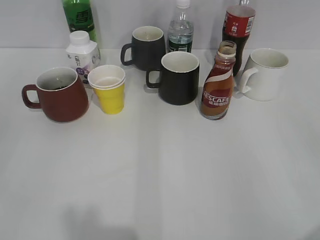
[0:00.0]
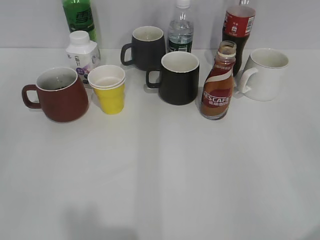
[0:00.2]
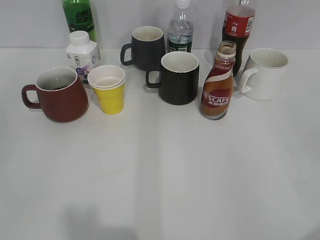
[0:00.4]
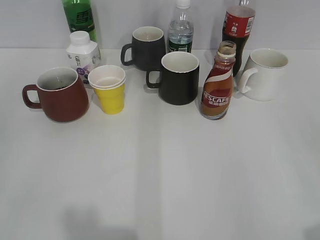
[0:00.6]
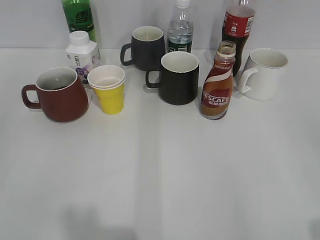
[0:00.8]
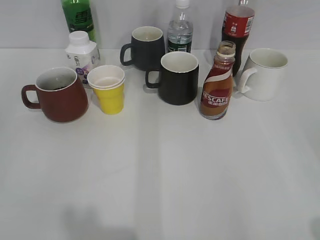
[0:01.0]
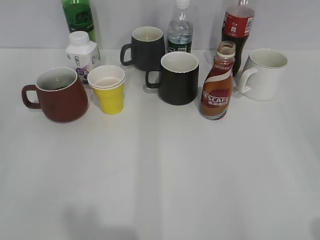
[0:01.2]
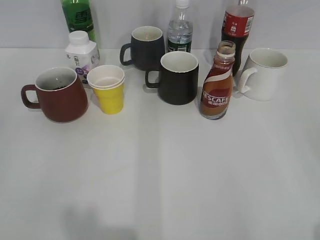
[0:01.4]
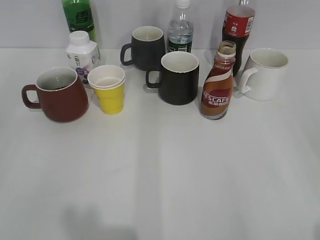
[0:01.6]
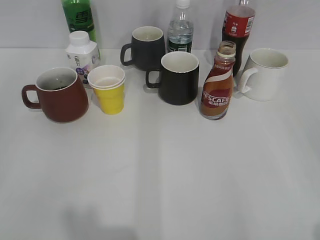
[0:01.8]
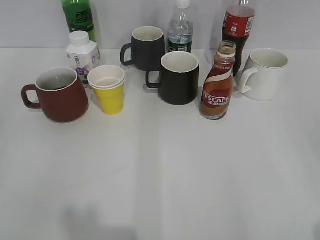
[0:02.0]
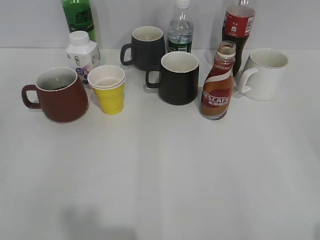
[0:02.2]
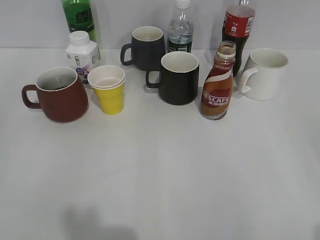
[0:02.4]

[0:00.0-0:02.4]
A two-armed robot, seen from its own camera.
0:01.2 to 0:02.4: Both grippers stay about where they are.

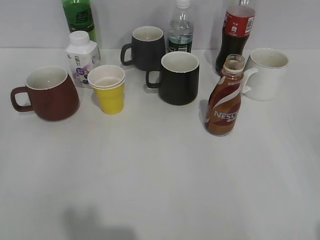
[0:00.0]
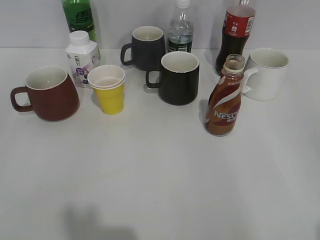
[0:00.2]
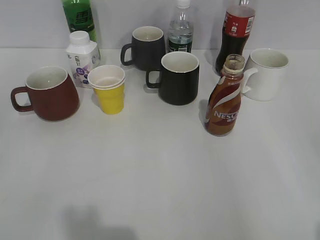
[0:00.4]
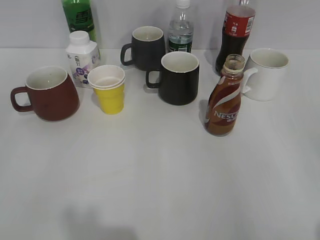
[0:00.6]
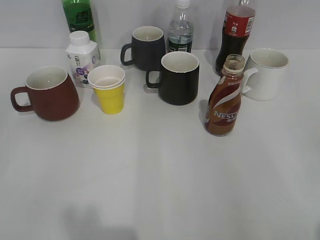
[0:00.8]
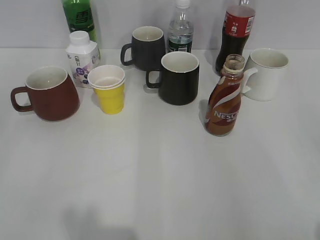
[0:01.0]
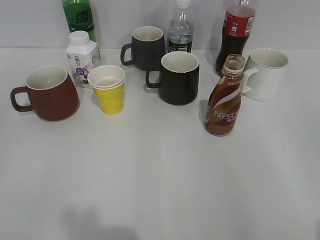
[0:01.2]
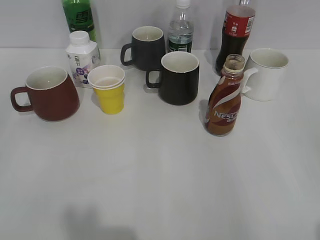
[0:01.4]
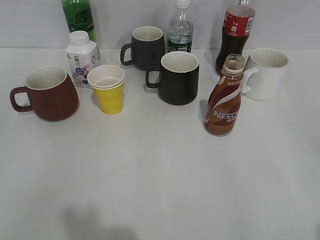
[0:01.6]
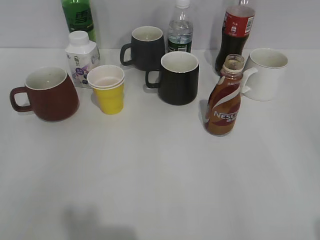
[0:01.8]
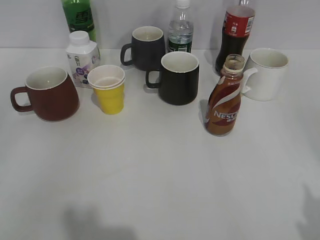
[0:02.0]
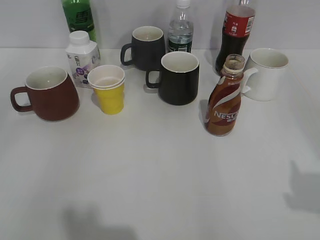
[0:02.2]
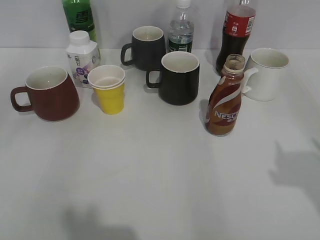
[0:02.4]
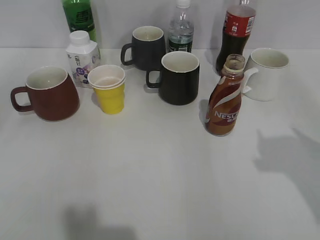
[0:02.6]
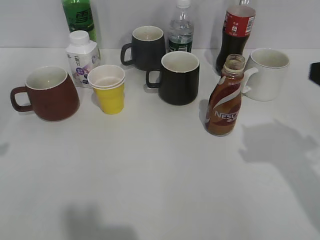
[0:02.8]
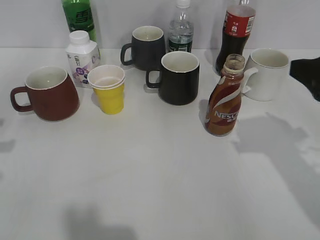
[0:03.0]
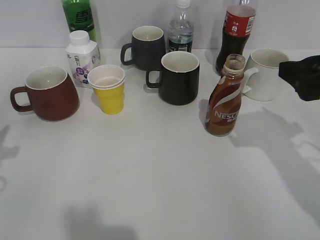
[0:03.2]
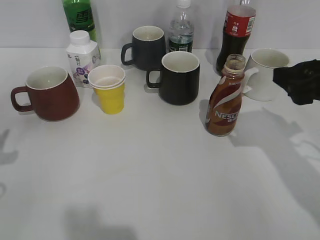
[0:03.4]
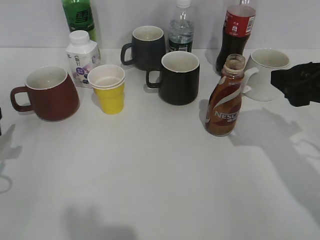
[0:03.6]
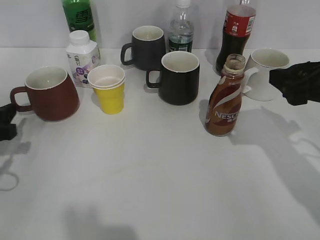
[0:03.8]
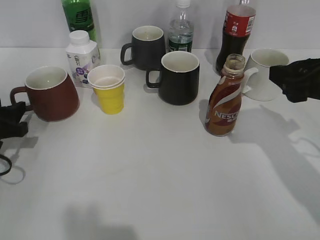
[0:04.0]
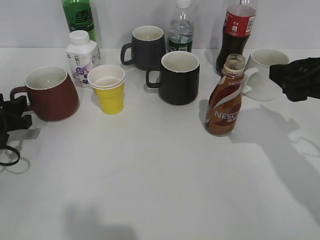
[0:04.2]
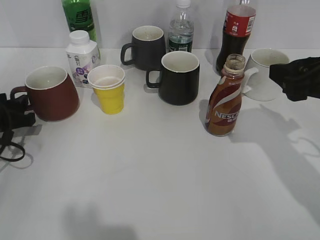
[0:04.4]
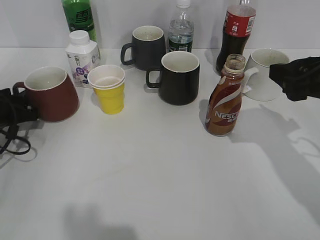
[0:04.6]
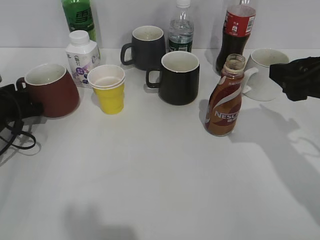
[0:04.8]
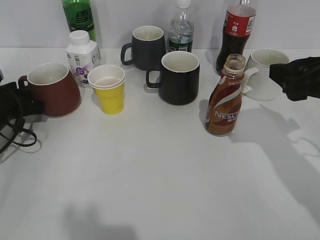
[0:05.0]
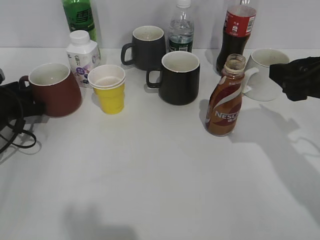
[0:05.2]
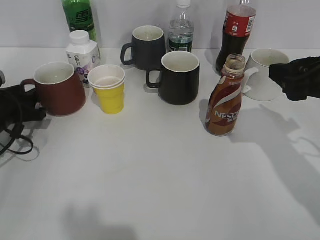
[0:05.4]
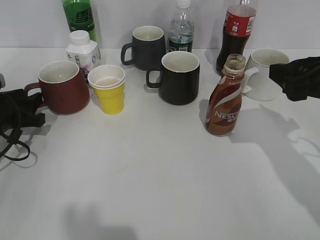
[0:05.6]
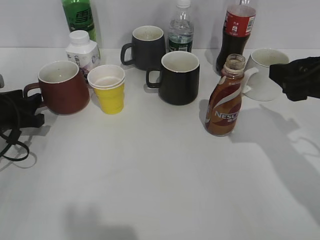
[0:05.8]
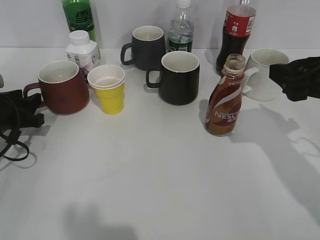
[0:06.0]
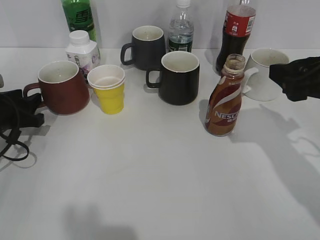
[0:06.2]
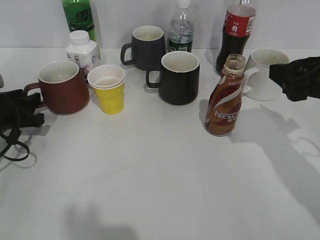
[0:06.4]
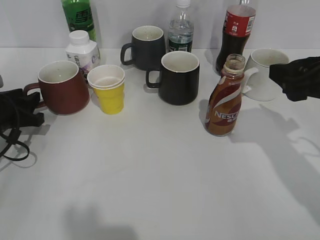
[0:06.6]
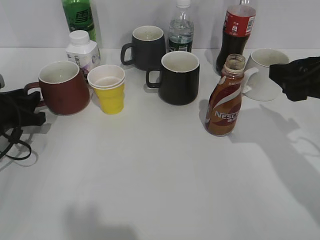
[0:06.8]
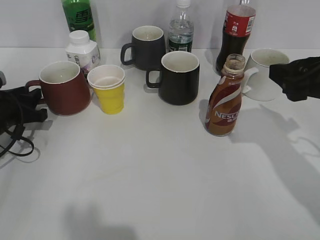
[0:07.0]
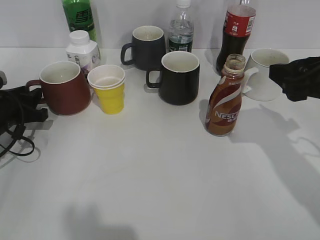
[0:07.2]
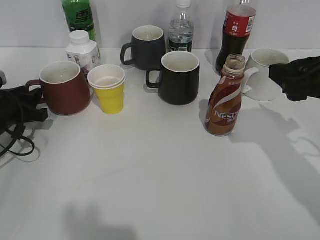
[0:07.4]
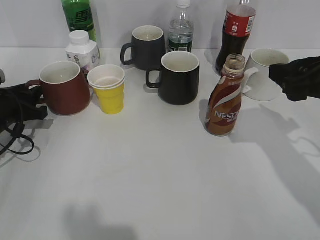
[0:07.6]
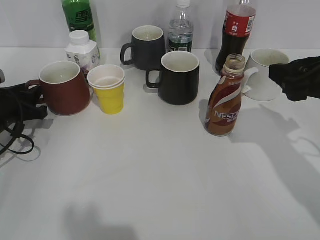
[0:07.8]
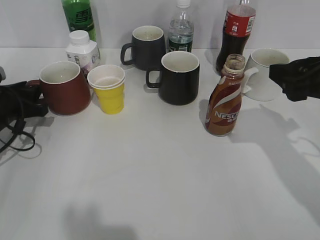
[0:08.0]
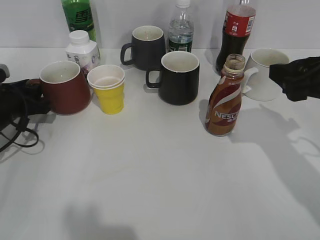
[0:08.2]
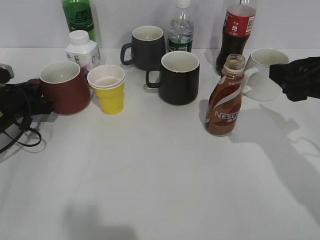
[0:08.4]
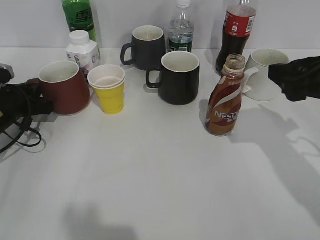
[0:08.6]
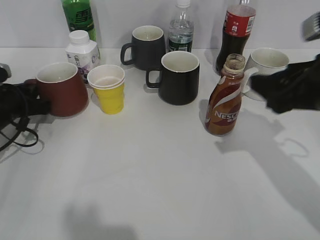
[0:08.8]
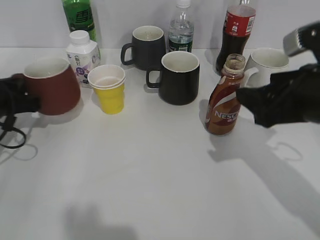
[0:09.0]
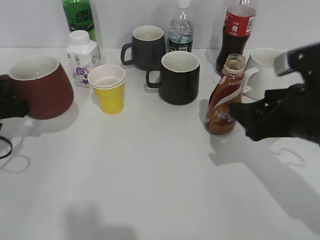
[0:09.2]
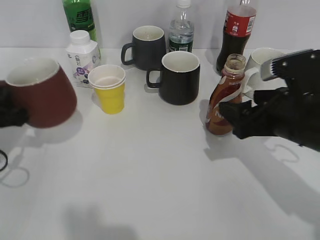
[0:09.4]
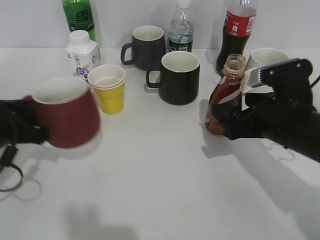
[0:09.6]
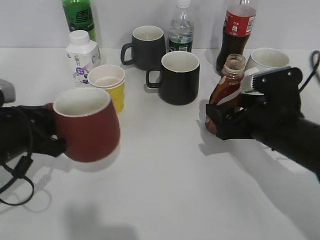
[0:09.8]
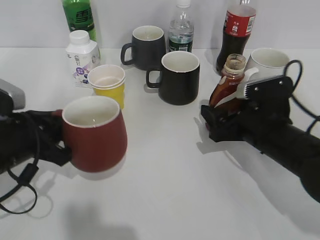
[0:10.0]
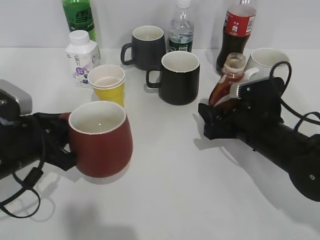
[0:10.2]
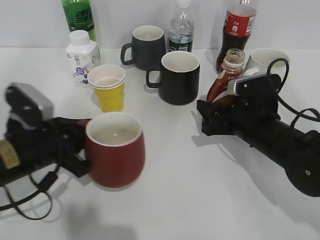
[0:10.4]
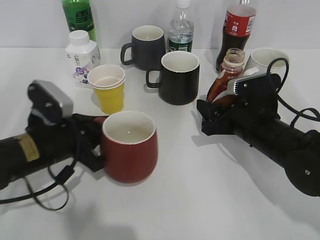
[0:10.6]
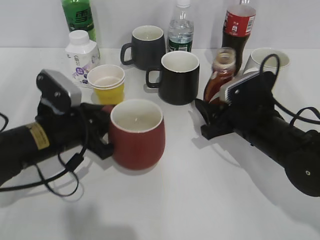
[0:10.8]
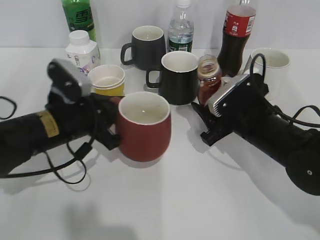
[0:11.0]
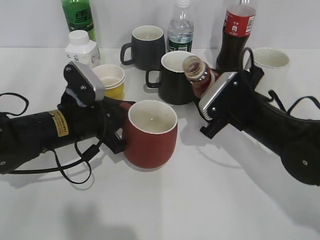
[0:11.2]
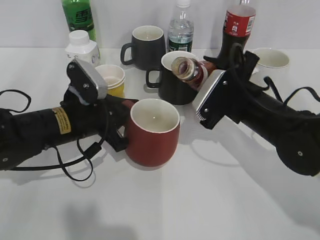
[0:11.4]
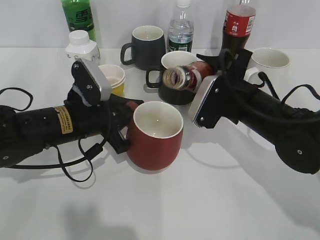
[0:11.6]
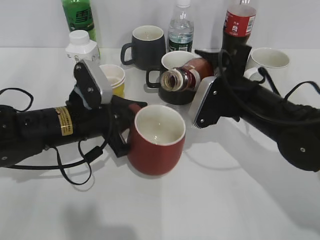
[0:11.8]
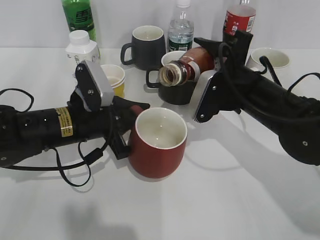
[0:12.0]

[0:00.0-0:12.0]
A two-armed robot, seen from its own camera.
Step, 0:01.8 to 0:08.6: Grasp the red cup with left gripper.
Step, 0:08.8 to 0:10.4: Lift the red cup with left gripper.
0:01.6 to 0:03.0: The right gripper heads forward, covering some 20 cm.
0:03.0 to 0:04.4: The left gripper travels downward and forward by approximately 15 cm, and opens.
0:04.4 to 0:07.6: The grippers move only a little.
0:07.6 to 0:09.0: The left gripper closes.
0:09.0 to 0:10.4: The left gripper travels to the right and backward by approximately 10 cm. The right gripper is displaced downward and forward by some 15 cm, and closes up.
0:10.4 to 0:12.0: The left gripper travels to the right and forward by about 10 cm, while the right gripper moves upward, some 5 cm.

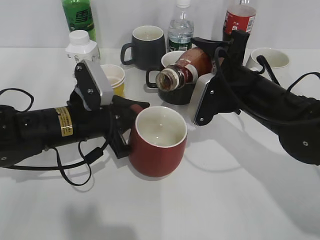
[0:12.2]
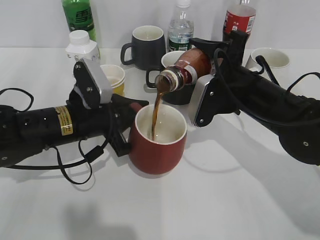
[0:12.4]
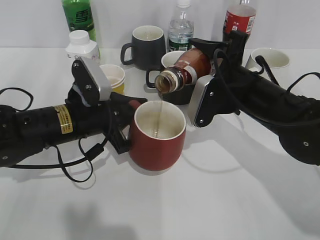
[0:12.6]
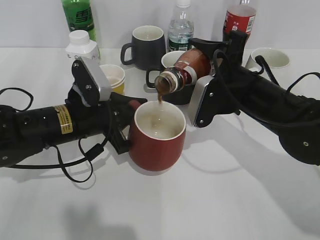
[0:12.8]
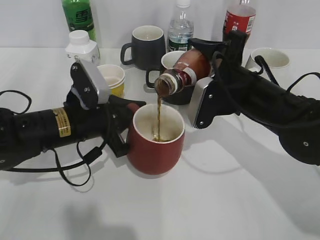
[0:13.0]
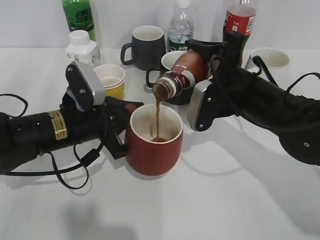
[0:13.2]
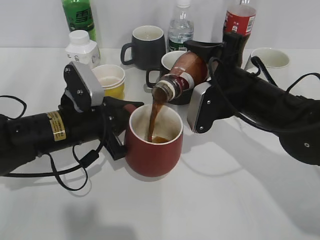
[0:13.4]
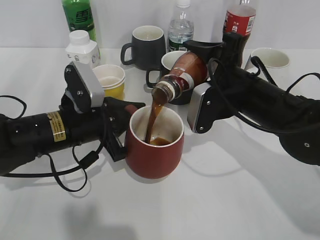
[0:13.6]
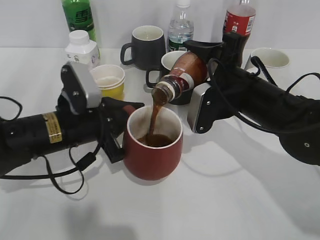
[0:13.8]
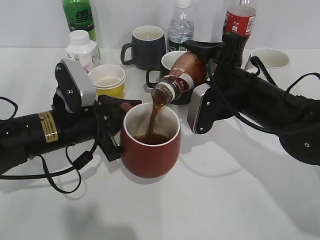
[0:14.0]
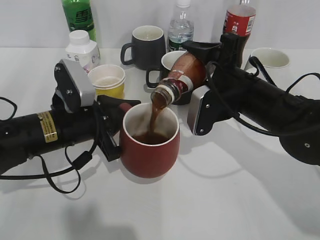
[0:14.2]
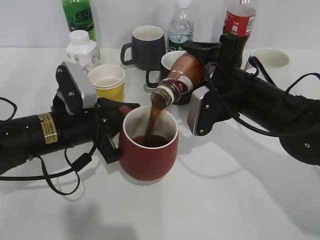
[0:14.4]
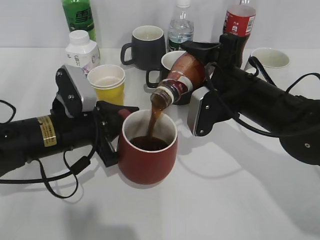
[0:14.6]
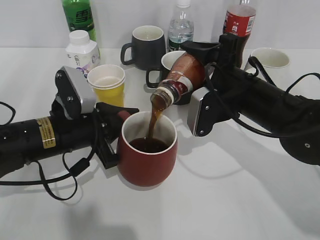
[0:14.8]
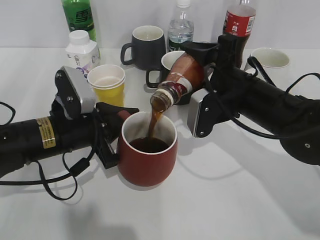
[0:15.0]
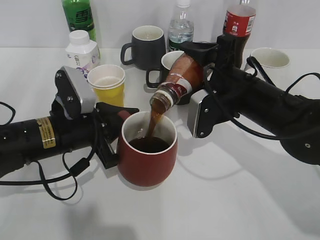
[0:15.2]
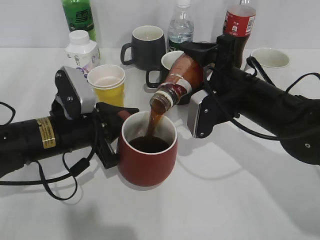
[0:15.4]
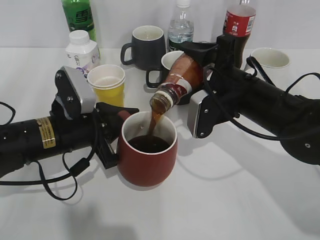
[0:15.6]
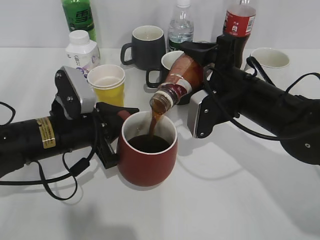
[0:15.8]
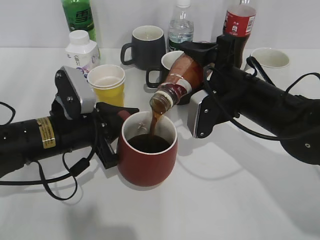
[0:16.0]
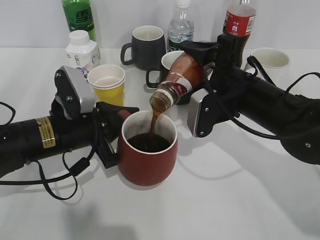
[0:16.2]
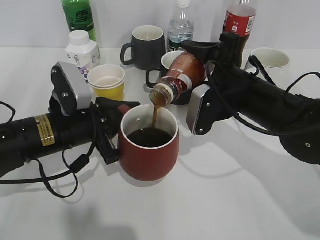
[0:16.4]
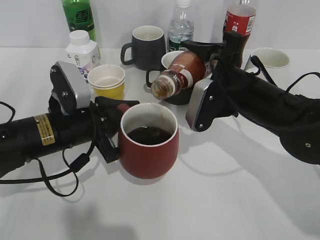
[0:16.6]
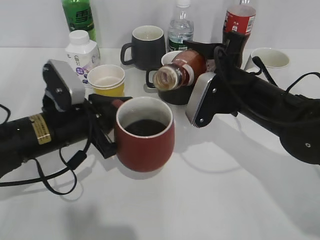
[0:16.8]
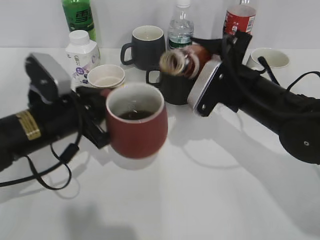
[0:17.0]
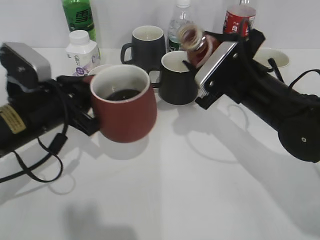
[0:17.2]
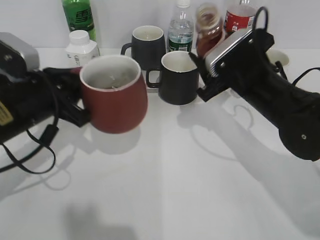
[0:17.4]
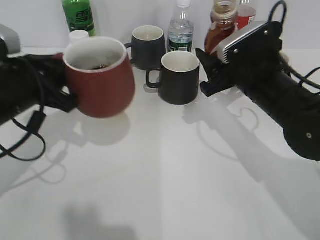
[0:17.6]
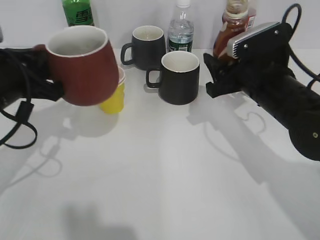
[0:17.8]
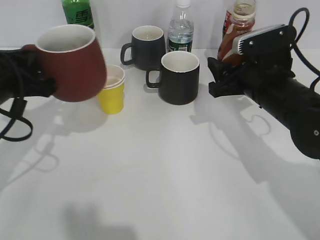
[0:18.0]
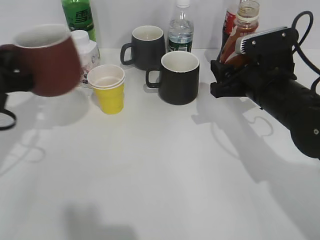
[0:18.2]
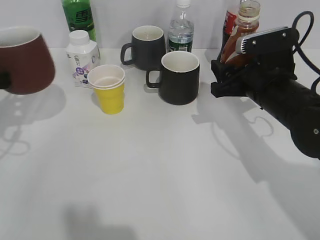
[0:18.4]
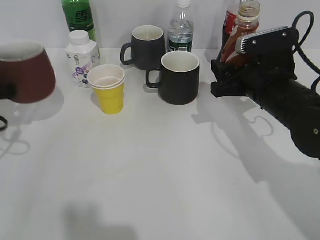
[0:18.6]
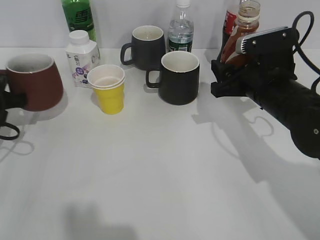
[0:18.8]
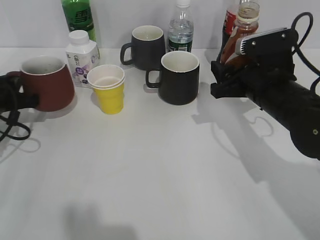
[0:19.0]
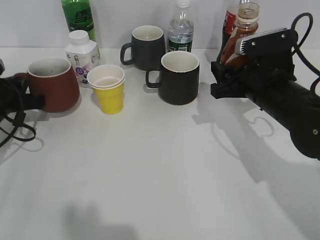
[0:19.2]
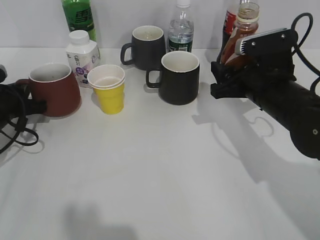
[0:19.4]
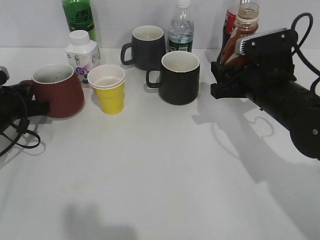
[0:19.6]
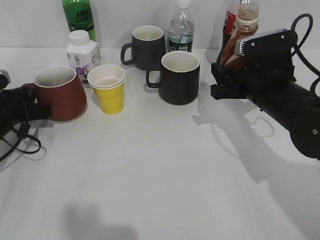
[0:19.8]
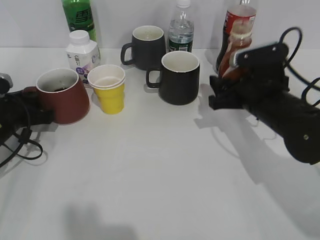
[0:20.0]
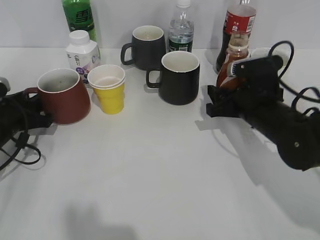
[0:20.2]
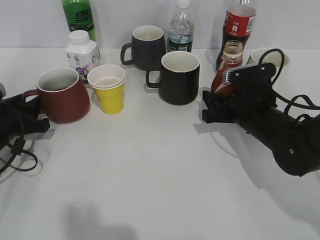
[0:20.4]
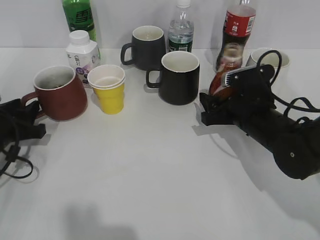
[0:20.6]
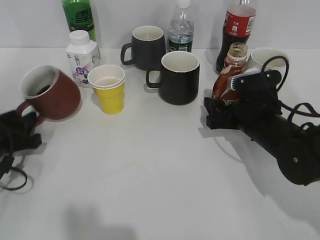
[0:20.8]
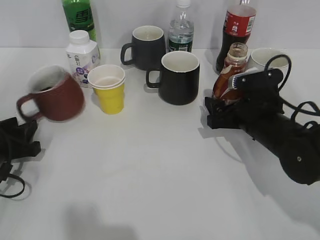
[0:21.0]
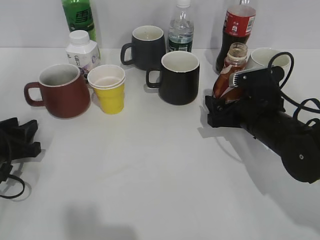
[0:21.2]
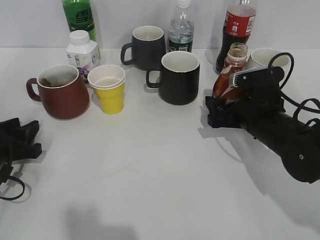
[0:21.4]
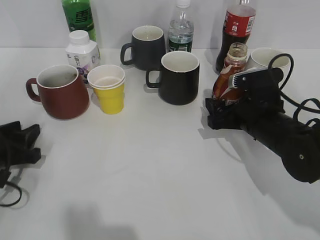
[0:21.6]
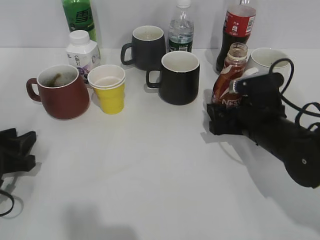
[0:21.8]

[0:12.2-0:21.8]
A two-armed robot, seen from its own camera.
Step, 0:12.2 to 0:16.8: Pour the coffee from bottle to cup with right gripper.
Step, 0:17.0 to 0:19.6: Place the red cup on the table with left gripper.
0:12.2 to 0:15.4: There are only small adjustments of the grippers.
0:17.0 to 0:18.6: The left gripper travels to the left by roughly 15 cm.
0:18.6 to 0:20.2: The left gripper heads downward, covering roughly 10 cm, and opens its fingers.
0:20.2 to 0:21.8: The right gripper opens up. The left gripper heads backward, covering some 10 cm.
